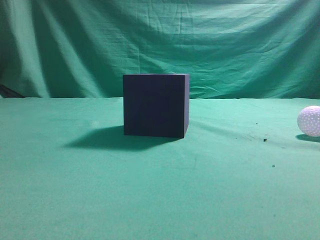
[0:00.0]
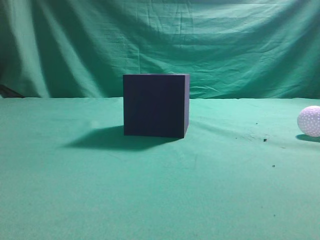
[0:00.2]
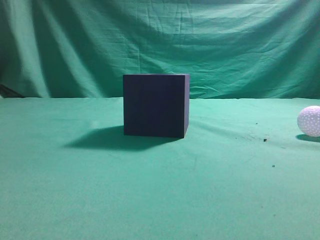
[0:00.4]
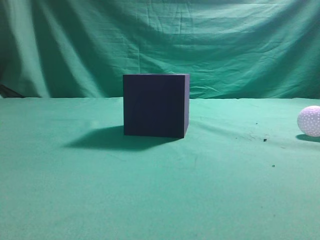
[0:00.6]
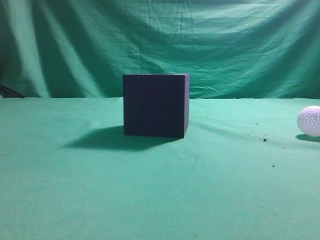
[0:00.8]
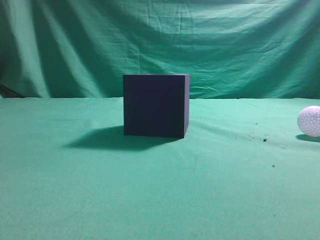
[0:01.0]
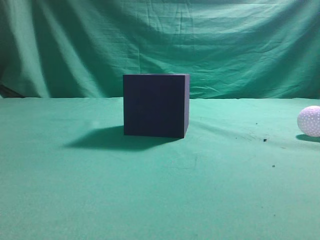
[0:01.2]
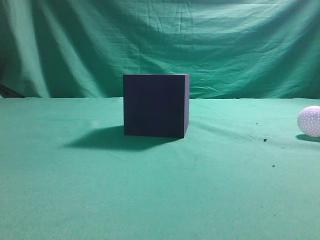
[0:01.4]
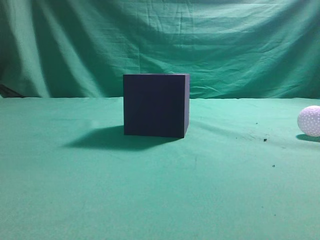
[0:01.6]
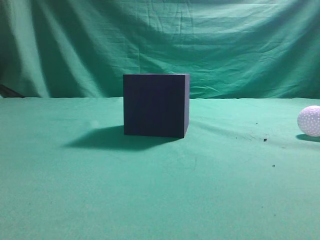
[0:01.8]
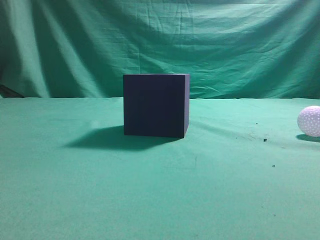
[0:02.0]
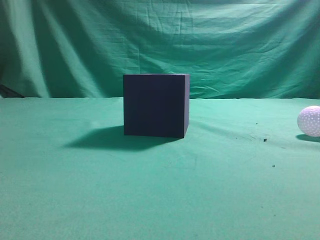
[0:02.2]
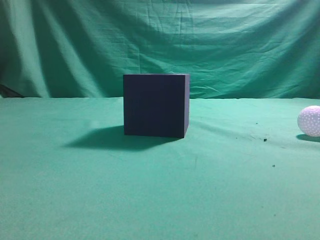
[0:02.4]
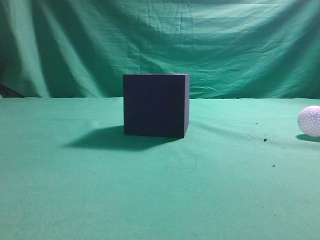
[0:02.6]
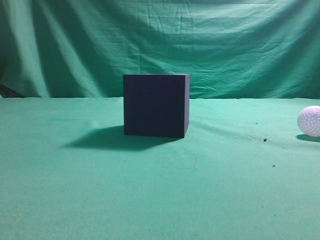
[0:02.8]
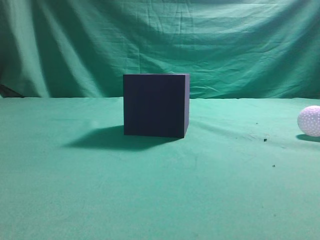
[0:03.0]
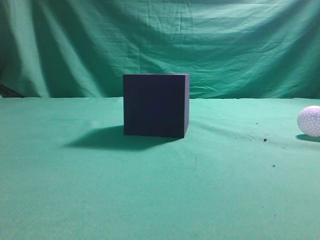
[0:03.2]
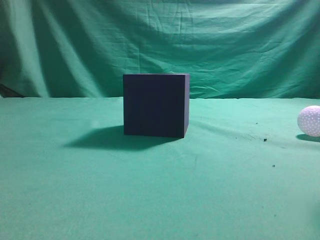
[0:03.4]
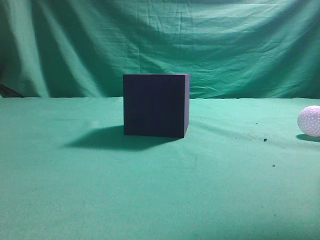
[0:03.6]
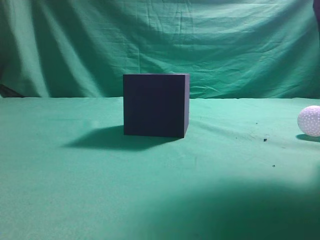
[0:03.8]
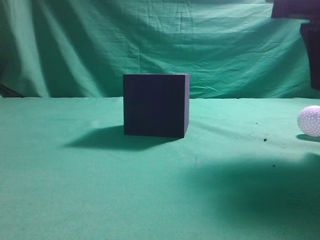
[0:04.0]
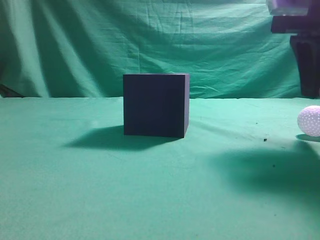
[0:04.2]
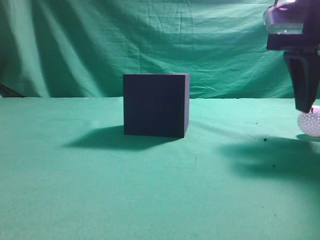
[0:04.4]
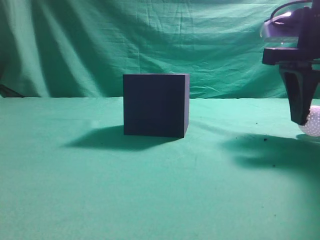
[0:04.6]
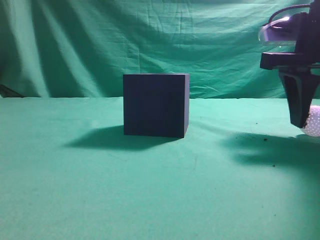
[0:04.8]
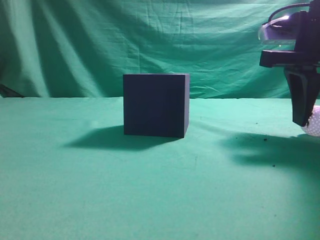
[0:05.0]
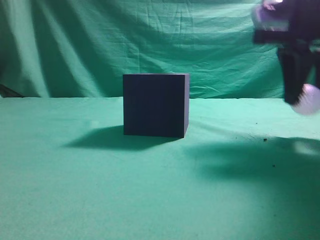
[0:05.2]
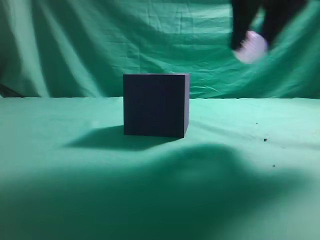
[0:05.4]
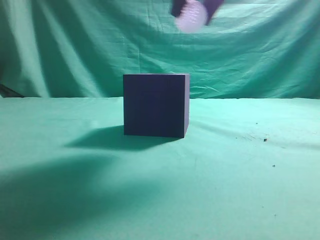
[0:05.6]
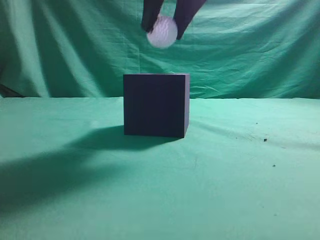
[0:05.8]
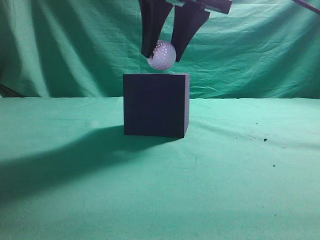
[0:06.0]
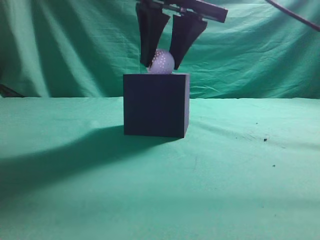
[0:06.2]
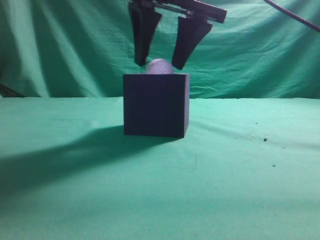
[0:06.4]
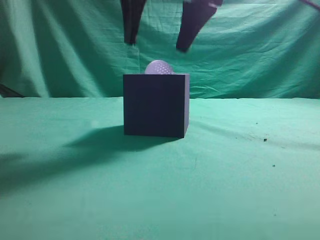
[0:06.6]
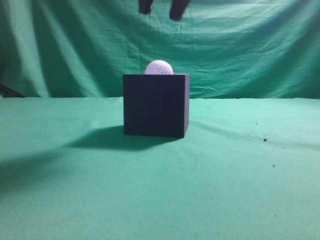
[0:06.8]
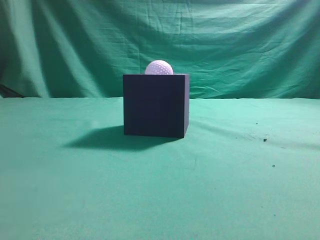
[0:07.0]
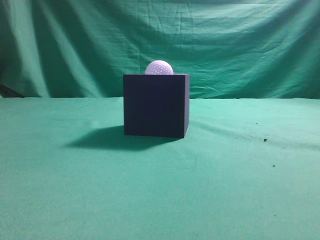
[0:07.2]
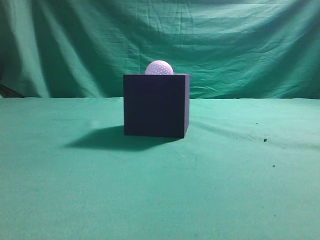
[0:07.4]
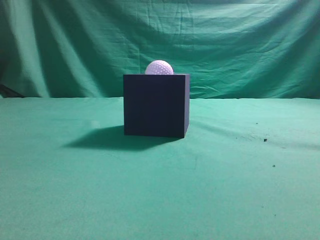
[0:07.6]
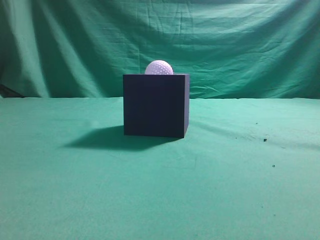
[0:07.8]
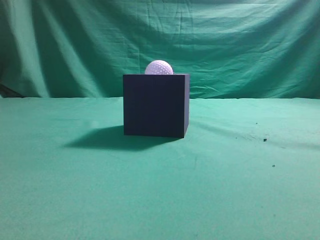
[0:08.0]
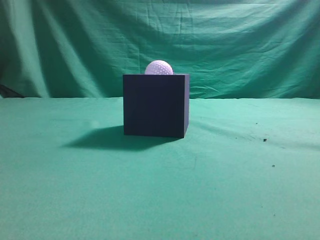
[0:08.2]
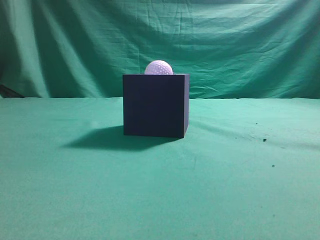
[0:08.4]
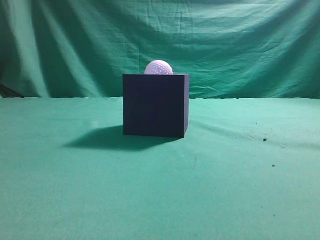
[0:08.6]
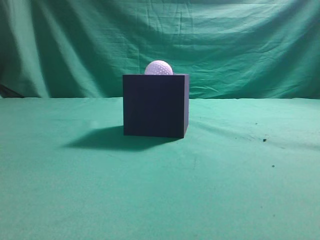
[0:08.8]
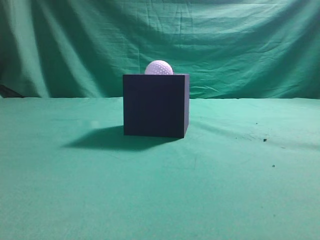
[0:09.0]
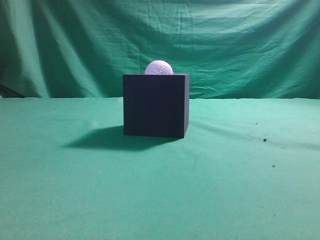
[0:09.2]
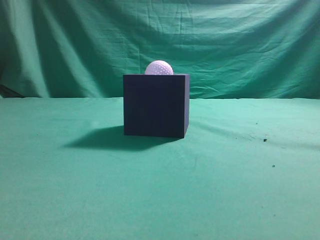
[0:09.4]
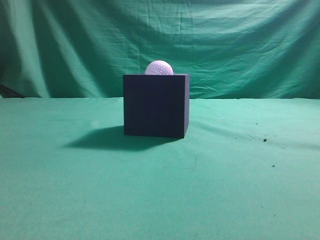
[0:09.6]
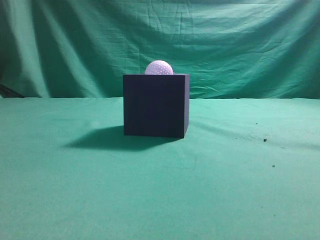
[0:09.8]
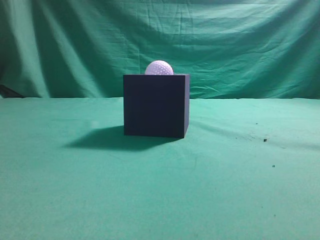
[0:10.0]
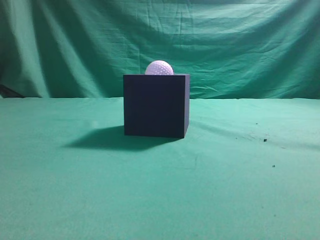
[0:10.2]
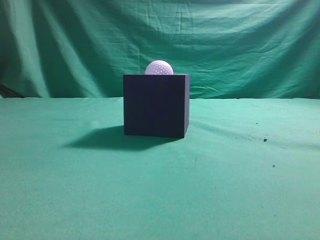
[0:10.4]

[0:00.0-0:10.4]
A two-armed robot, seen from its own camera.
Task of the whole recording: Pick up the ball and place it in the circular groove above the cube.
Step, 0:00.0 to 0:05.0: Grasp the sphere on the table.
Step, 0:05.2 to 0:06.4: Place the sphere into the sphere-shaped recess.
0:03.0 to 0:04.4: The right gripper heads forward and downward, covering roughly 15 cm, and opens up.
0:04.4 to 0:06.0: The right gripper moves to the left, some 15 cm.
0:06.0 to 0:07.4: The right gripper is displaced upward and backward by some 20 cm, and closes.
